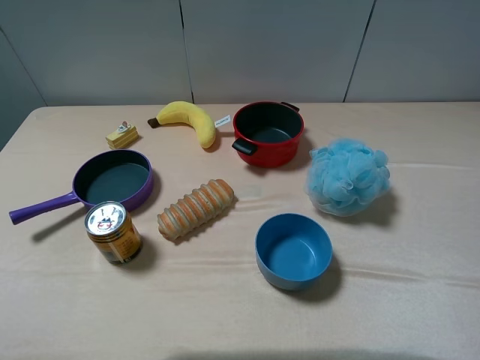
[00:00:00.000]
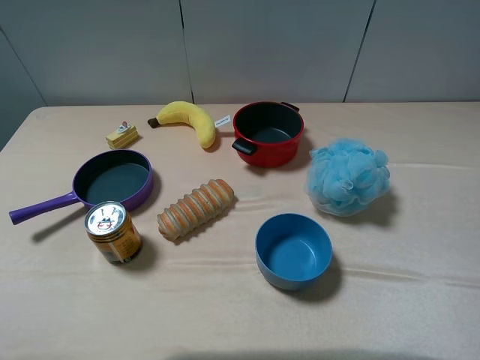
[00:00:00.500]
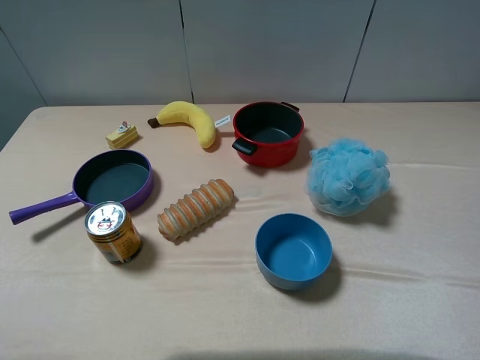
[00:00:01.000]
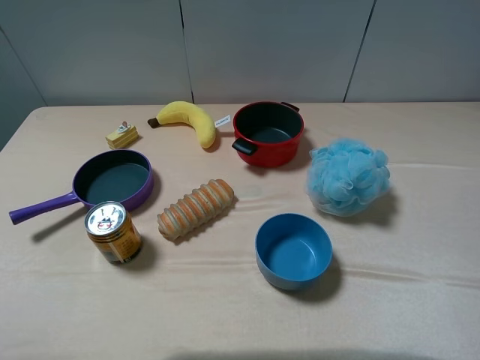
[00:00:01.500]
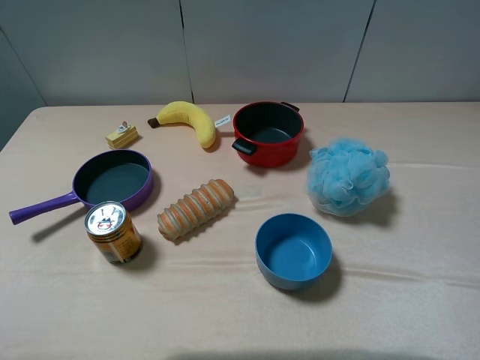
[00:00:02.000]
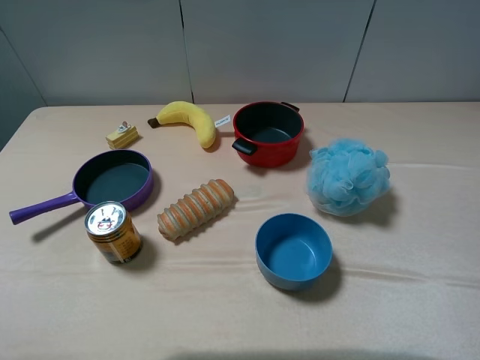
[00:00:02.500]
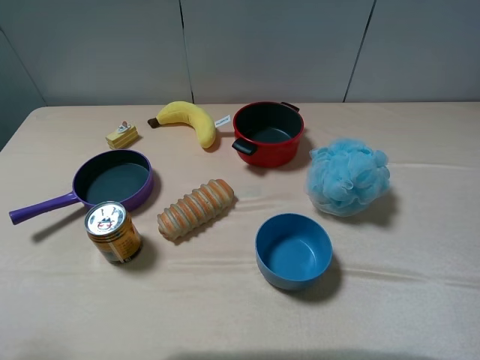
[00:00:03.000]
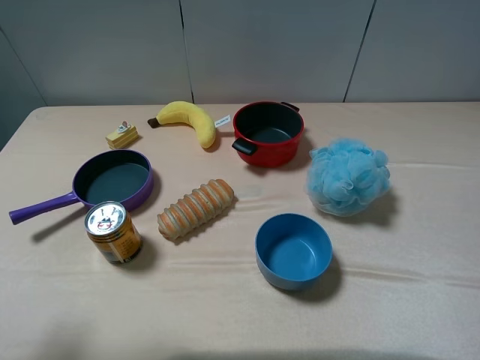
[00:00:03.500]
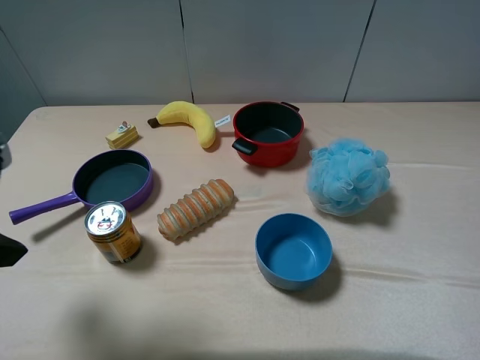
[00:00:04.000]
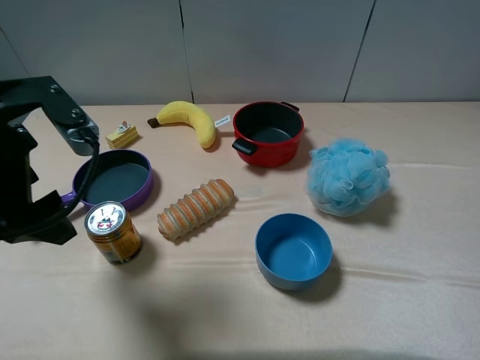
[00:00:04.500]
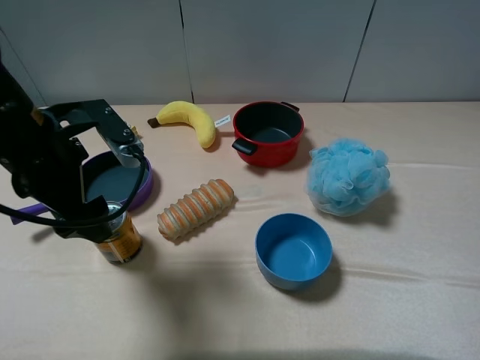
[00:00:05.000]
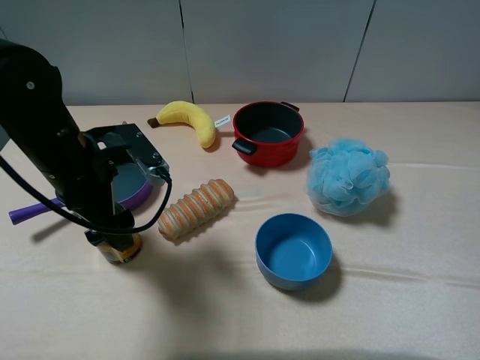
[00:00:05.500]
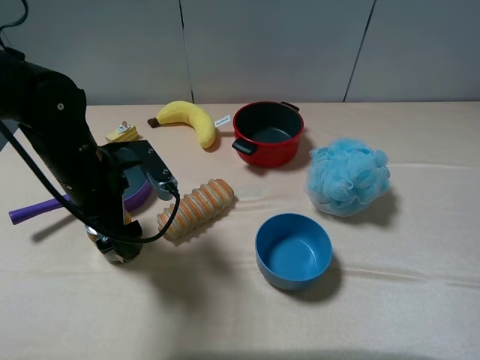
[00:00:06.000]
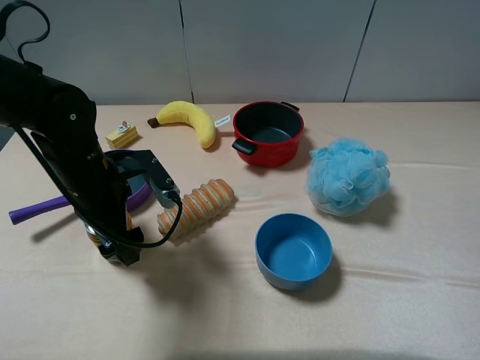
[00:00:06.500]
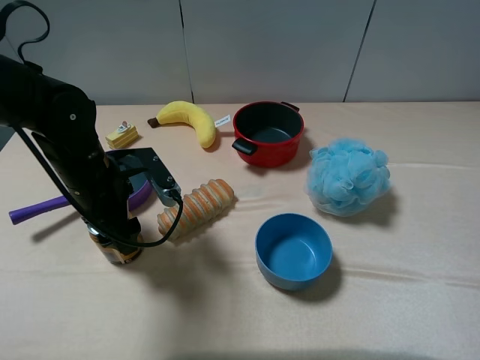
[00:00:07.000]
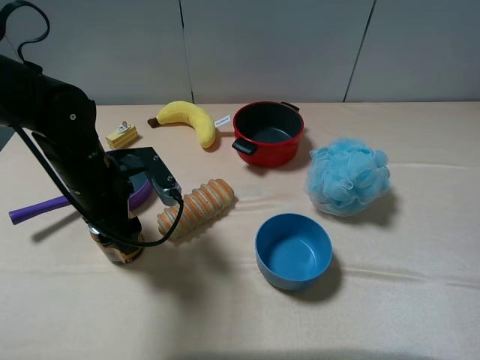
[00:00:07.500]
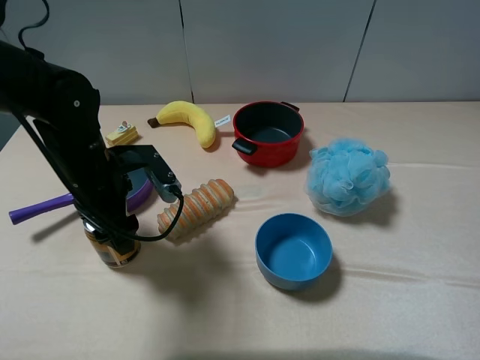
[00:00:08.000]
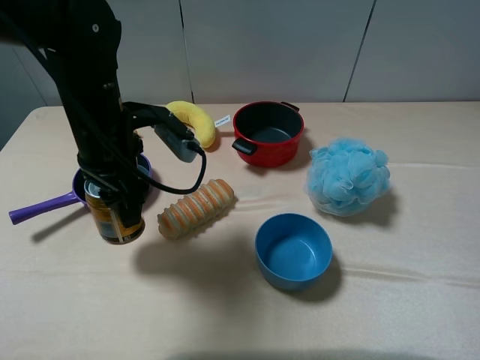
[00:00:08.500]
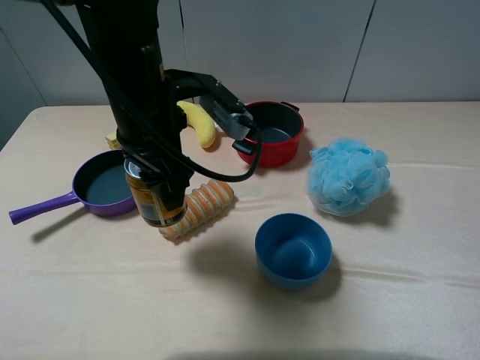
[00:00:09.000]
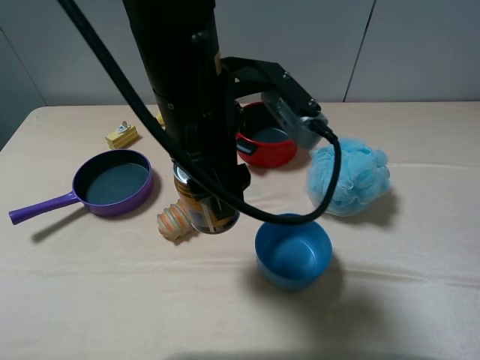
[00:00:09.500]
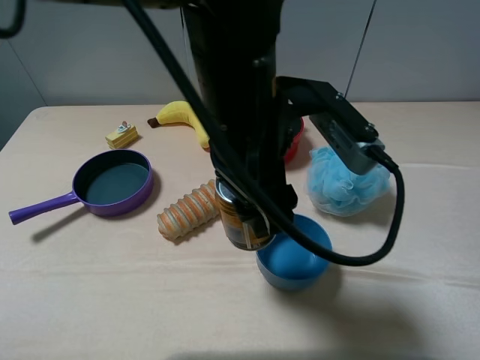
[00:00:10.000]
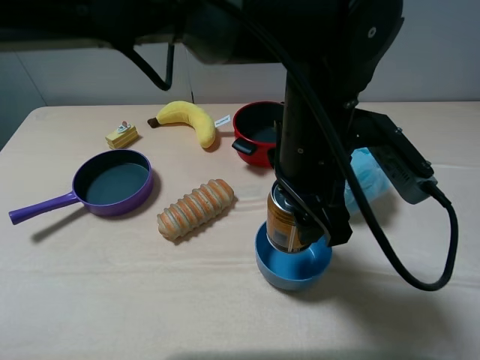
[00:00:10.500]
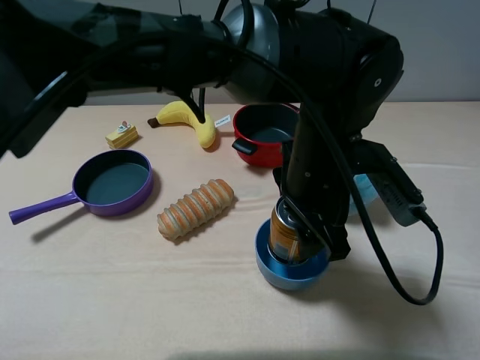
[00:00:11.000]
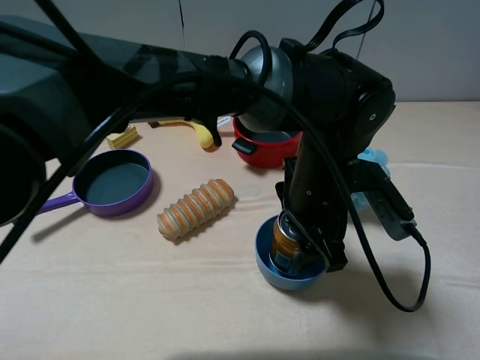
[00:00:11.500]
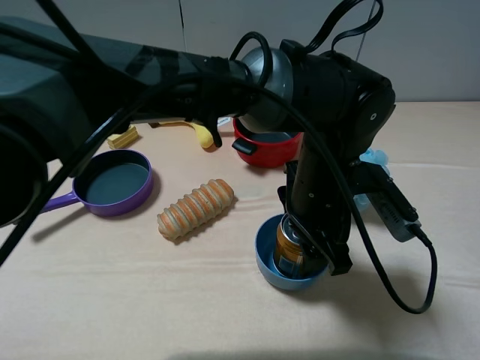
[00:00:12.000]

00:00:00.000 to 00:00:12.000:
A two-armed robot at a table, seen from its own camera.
Task of the whole recording: pick up an item with a gripper and place it in a random container on the table.
Step, 00:00:00.000 to 00:00:07.000: Grasp the red bull with the left gripper.
00:00:00.000 to 00:00:02.000: The two grippers keep their place.
00:00:02.000 to 00:00:04.000: The left gripper moves forward, about 15 cm.
00:00:04.000 to 00:00:06.000: The left gripper travels downward, forward and to the right by approximately 20 cm.
00:00:06.000 to 00:00:08.000: The left gripper closes.
00:00:08.000 to 00:00:10.000: The left gripper goes roughly 25 cm to the right and upward.
00:00:10.000 to 00:00:12.000: The left gripper moves downward and to the right, approximately 15 cm.

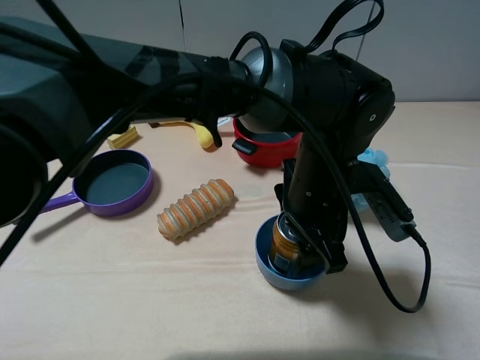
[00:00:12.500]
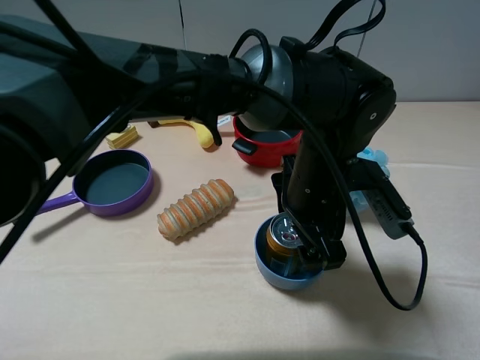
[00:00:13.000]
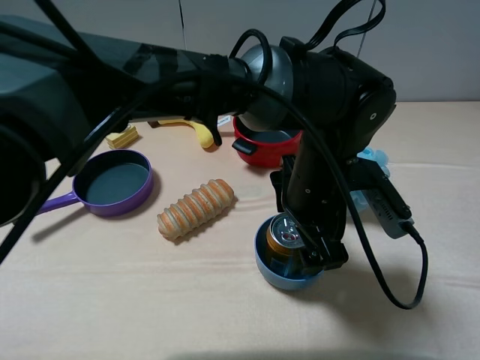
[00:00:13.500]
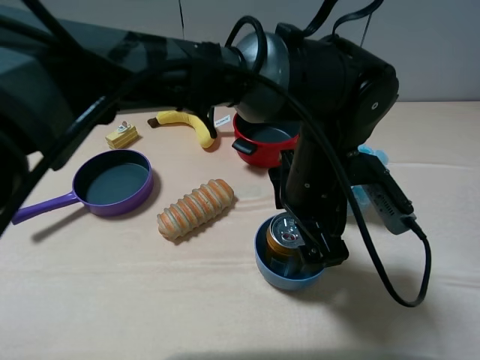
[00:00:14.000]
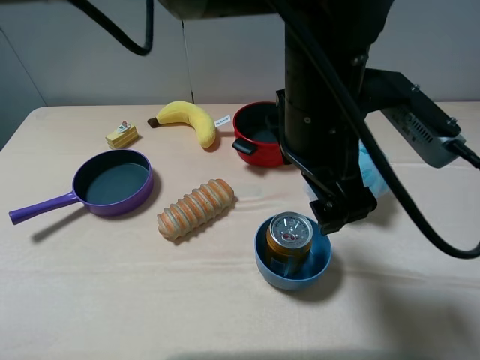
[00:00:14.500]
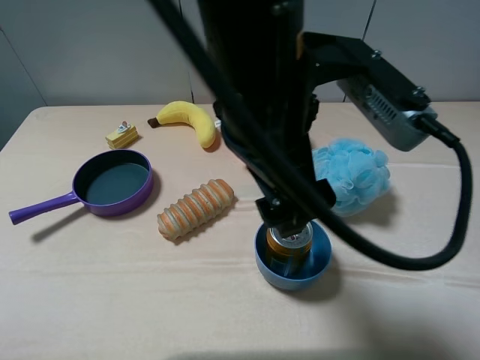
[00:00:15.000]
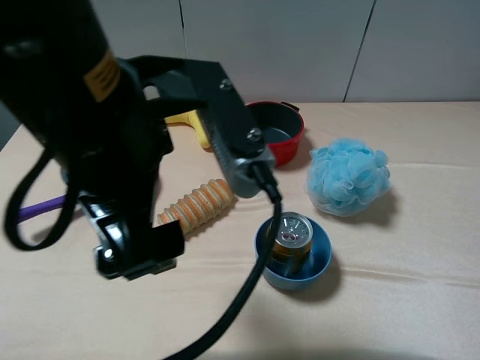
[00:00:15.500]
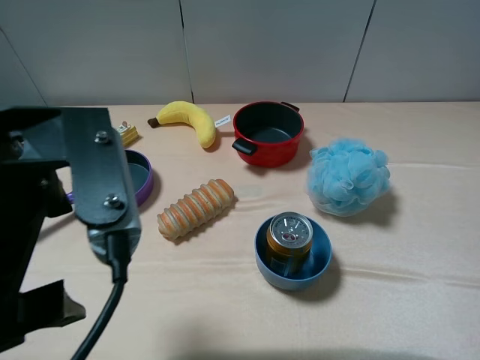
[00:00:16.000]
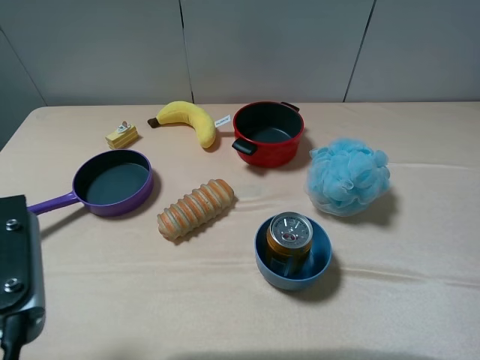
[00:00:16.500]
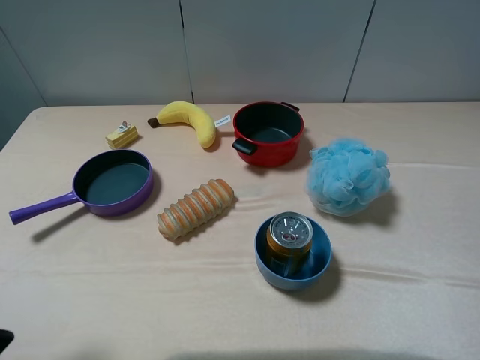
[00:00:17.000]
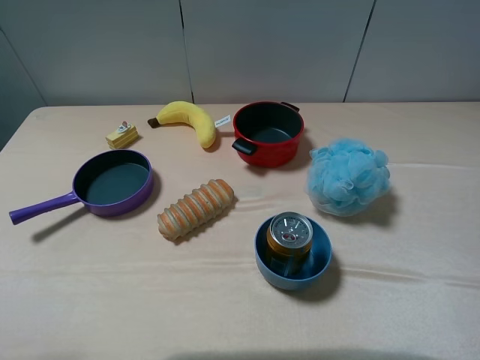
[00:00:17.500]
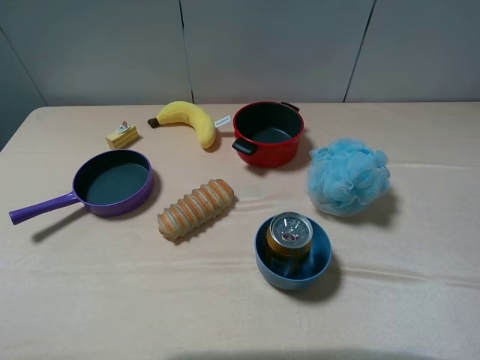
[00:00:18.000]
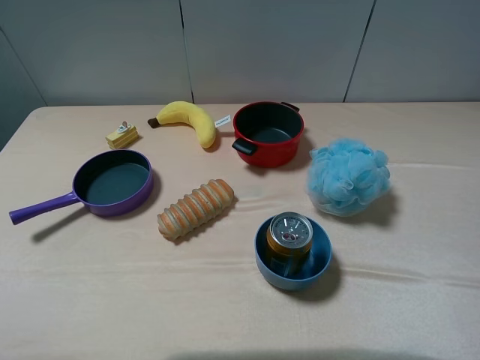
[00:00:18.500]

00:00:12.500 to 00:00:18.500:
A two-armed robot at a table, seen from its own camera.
Task of the whole recording: pick up an item with a gripper and place it in a random container on the table.
00:00:12.500 to 00:00:14.500: The left gripper goes approximately 10 cm upward, and opens.
00:00:14.500 to 00:00:16.500: The left gripper is displaced to the left and backward by about 30 cm.
00:00:16.500 to 00:00:18.500: The left gripper moves to the left and backward, some 10 cm.
